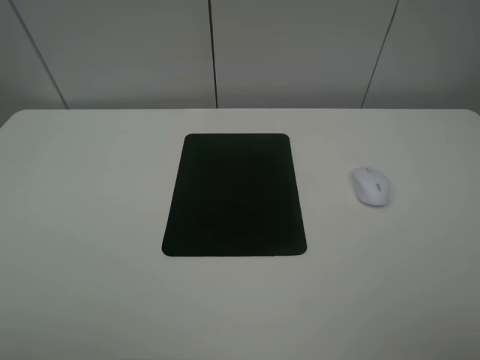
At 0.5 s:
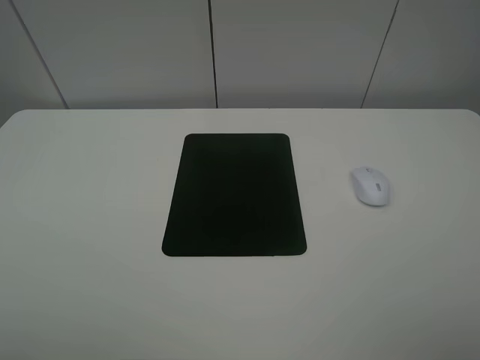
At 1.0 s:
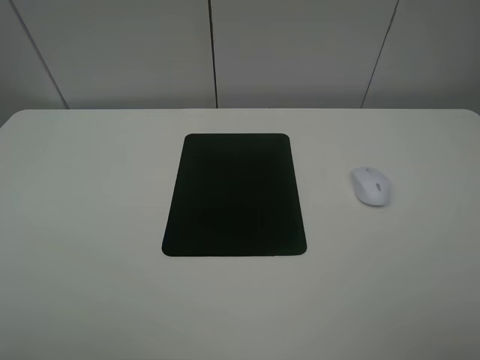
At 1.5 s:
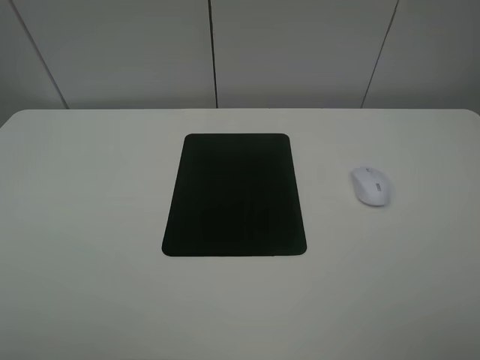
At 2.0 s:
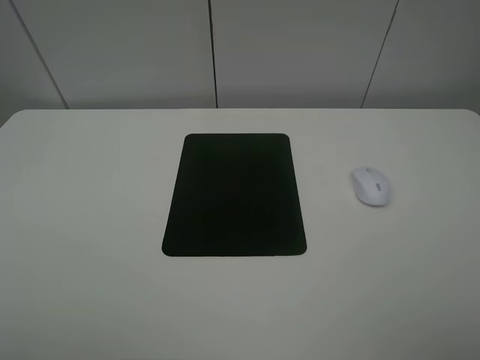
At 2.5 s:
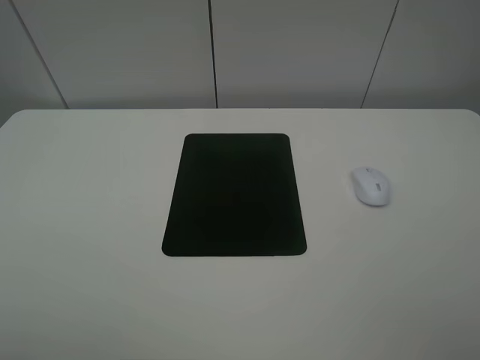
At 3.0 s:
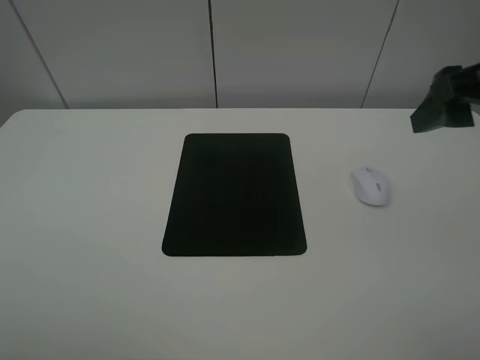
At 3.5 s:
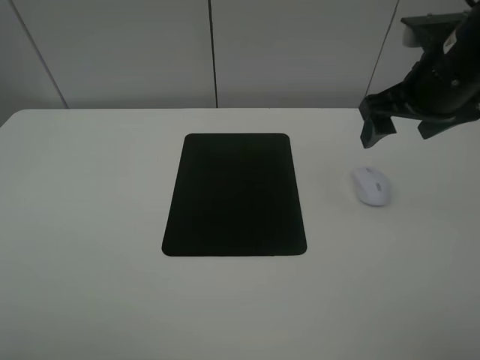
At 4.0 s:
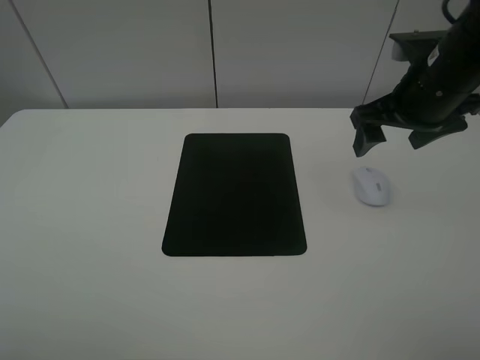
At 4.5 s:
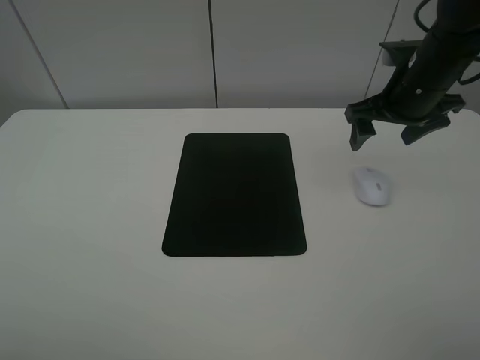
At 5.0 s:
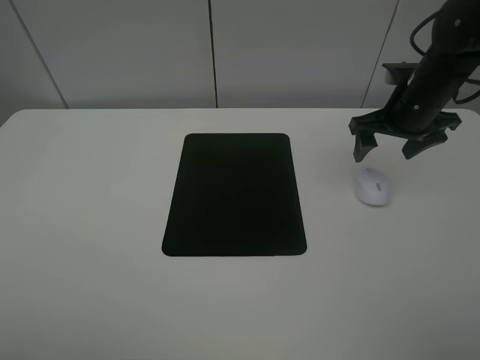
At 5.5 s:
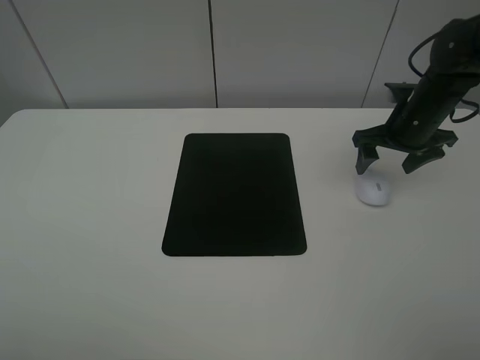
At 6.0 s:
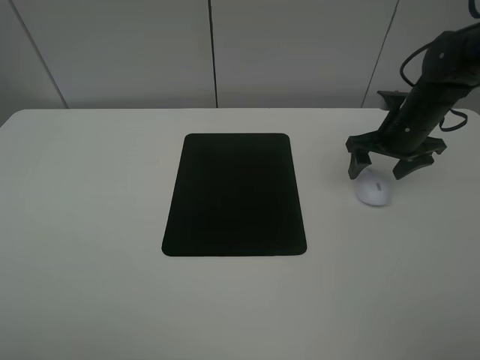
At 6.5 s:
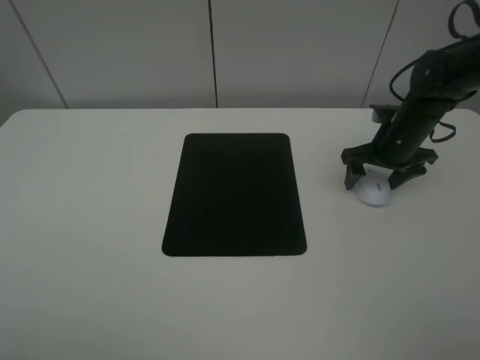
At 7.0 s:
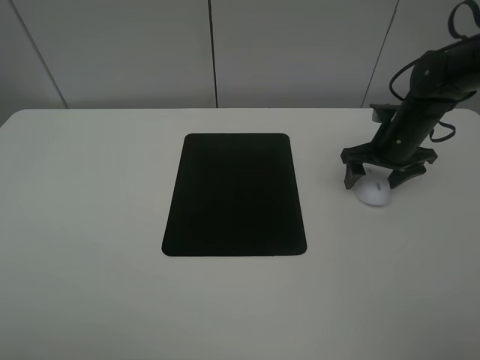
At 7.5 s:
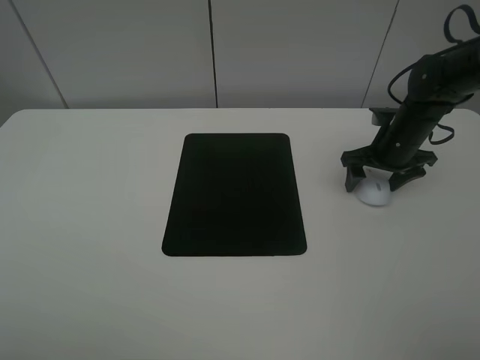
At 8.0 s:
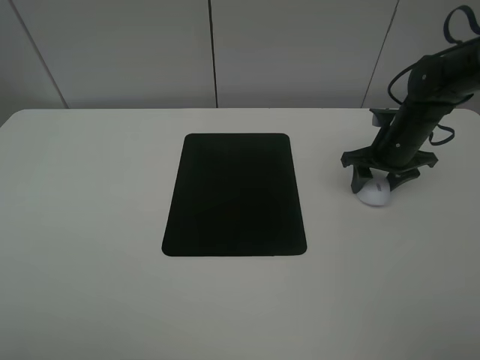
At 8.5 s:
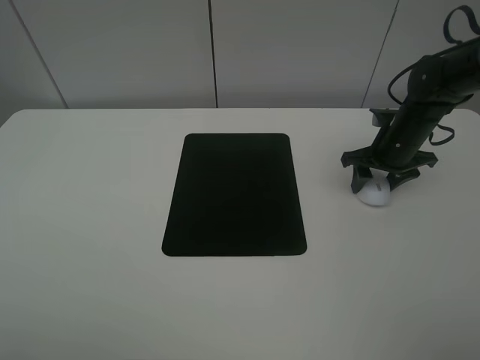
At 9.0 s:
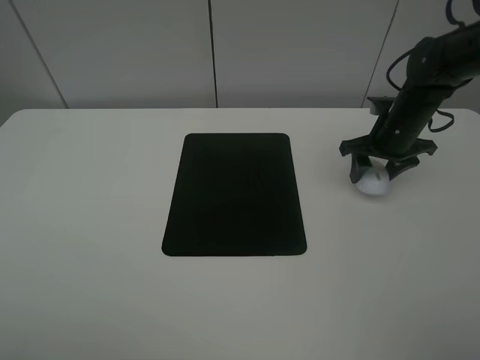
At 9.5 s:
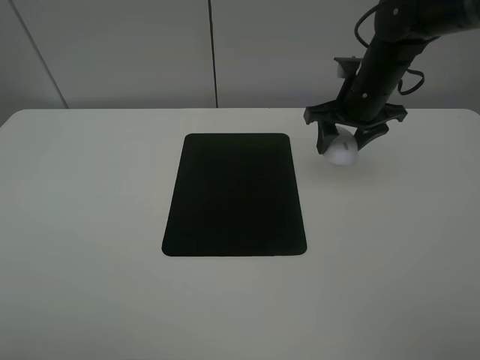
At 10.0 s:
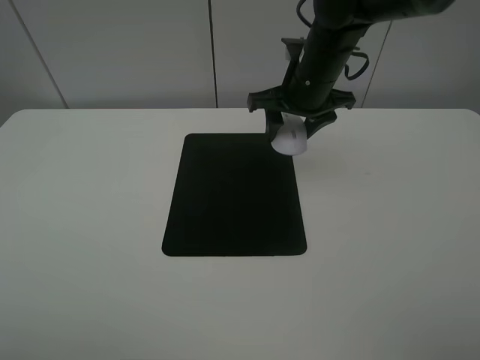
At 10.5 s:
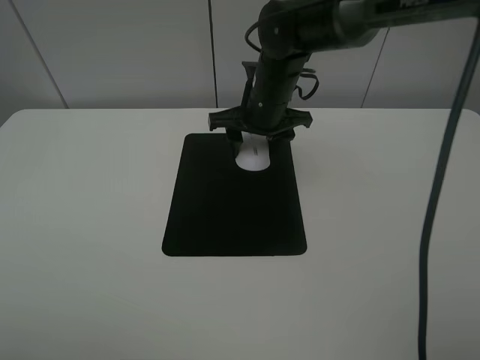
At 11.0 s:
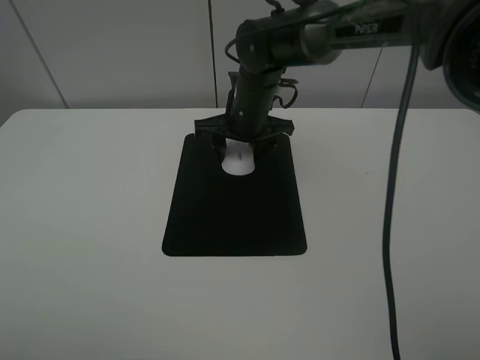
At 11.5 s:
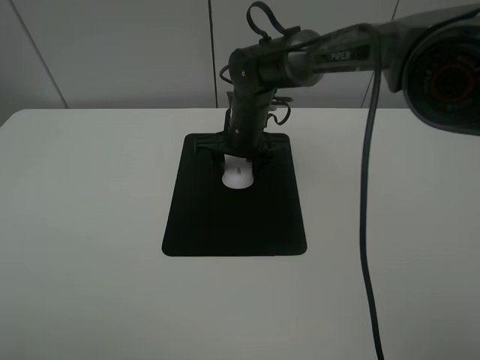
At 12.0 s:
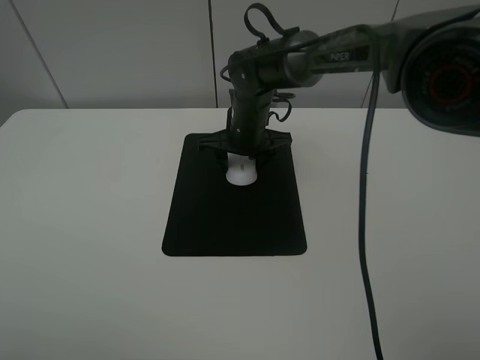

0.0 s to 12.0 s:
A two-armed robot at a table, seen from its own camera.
Step, 0.0 to 7.5 s: Grasp the mouse with the right gripper.
0.0 to 2.0 s: Both grippers stay put.
2.0 to 4.0 s: The right gripper moves forward, some 30 cm.
4.0 to 6.0 s: The right gripper travels downward and forward by approximately 15 cm.
6.0 to 8.0 s: The right gripper closes.
8.0 to 10.0 s: The right gripper moves to the left and upward, approximately 20 cm.
10.0 to 12.0 s: The right gripper travels downward and to the left by some 10 cm.

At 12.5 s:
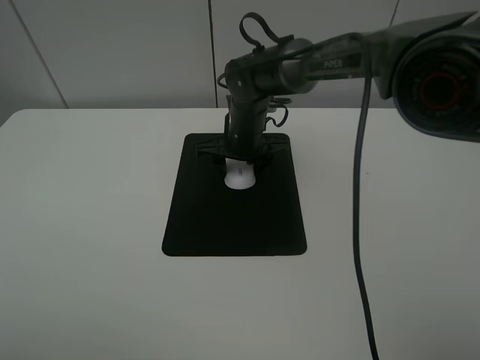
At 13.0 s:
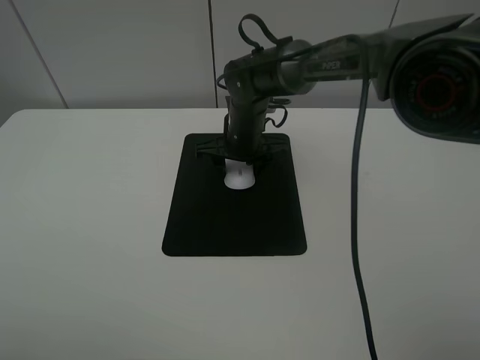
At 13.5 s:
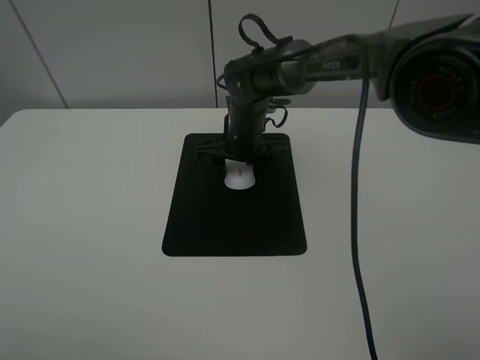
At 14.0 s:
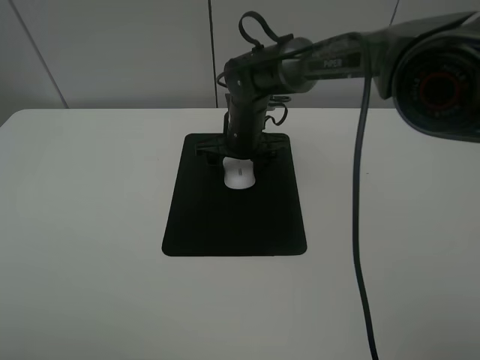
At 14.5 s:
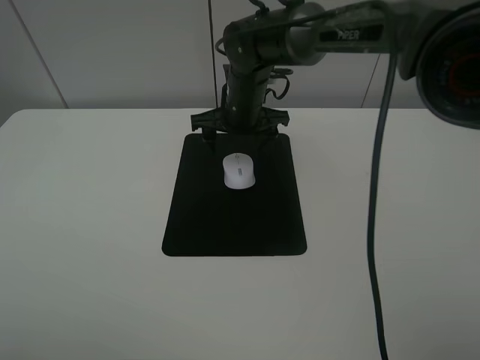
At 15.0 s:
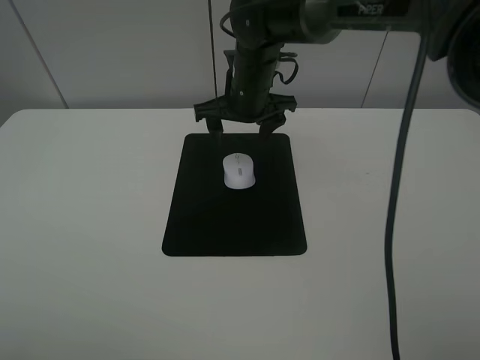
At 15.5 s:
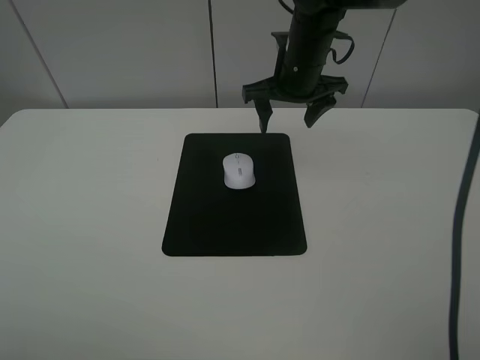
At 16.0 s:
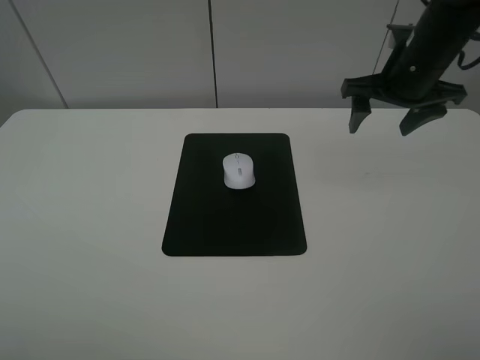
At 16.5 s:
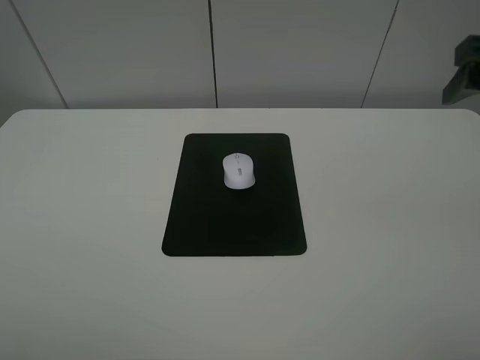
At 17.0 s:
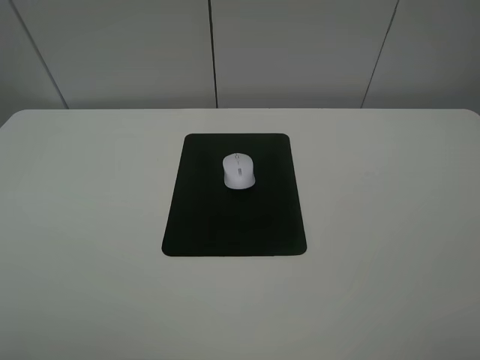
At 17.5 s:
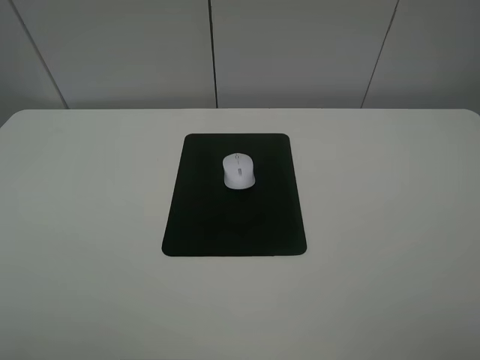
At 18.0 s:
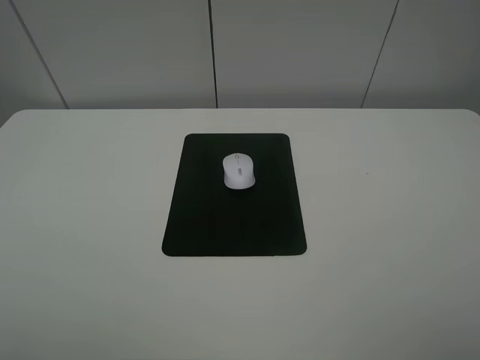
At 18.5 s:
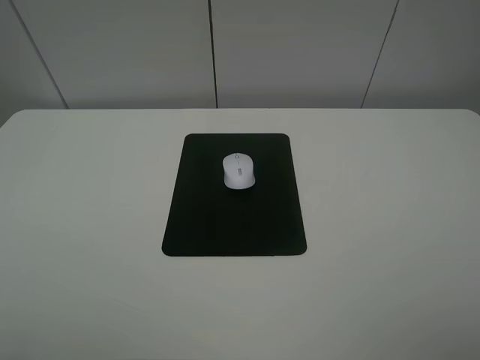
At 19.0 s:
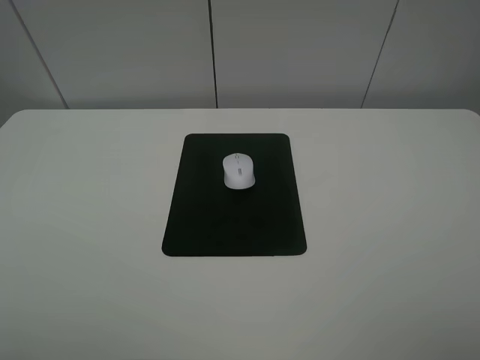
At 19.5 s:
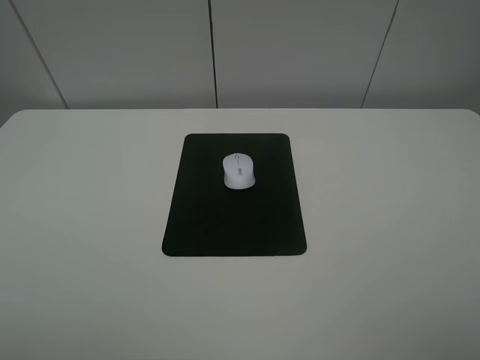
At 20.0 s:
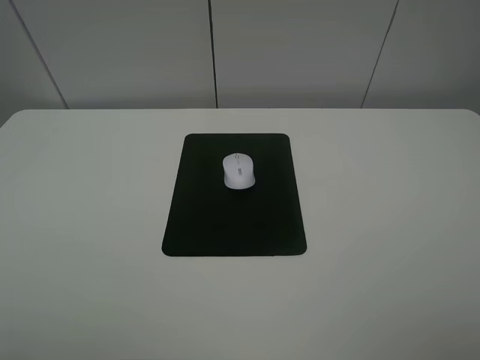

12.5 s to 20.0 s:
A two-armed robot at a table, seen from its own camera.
12.5 to 14.5 s: The right gripper shifts by about 5 cm, and opens its fingers.
14.5 to 16.5 s: The right gripper shifts about 35 cm to the right, backward and upward.
16.5 to 18.0 s: The right gripper goes approximately 20 cm backward.

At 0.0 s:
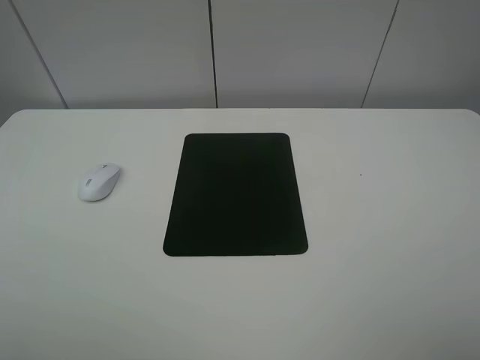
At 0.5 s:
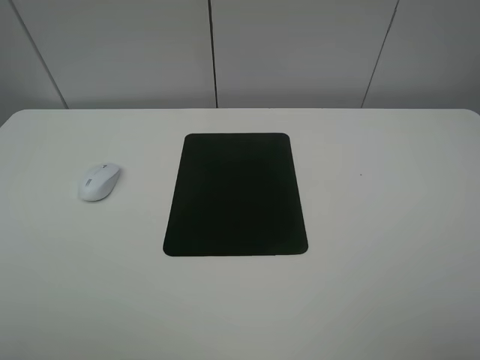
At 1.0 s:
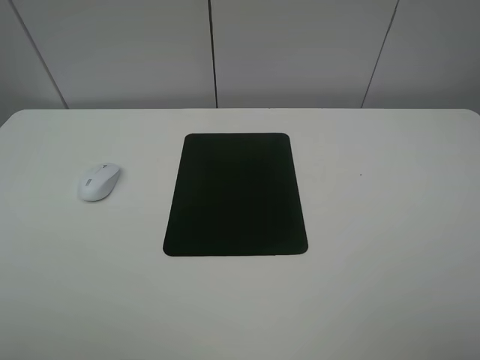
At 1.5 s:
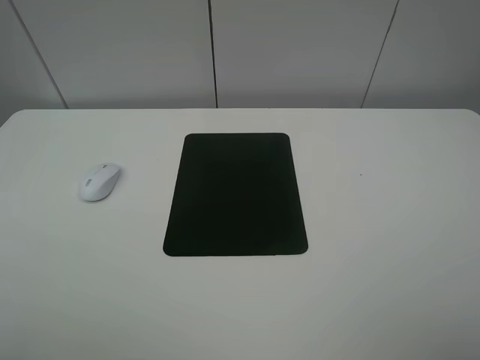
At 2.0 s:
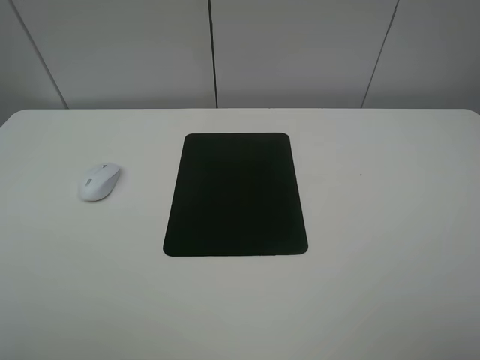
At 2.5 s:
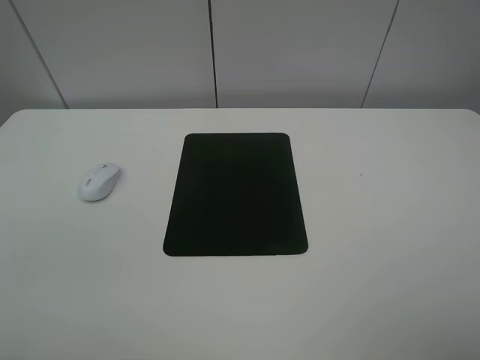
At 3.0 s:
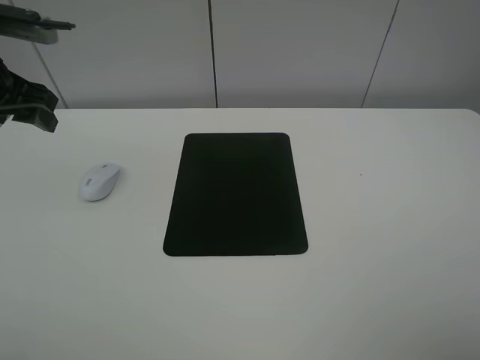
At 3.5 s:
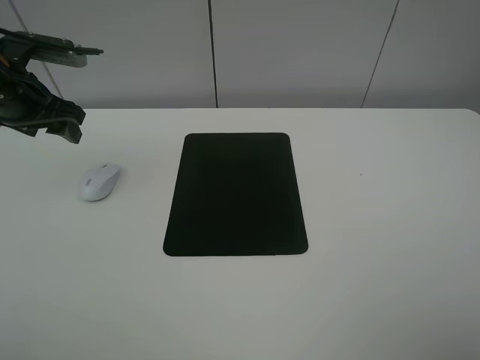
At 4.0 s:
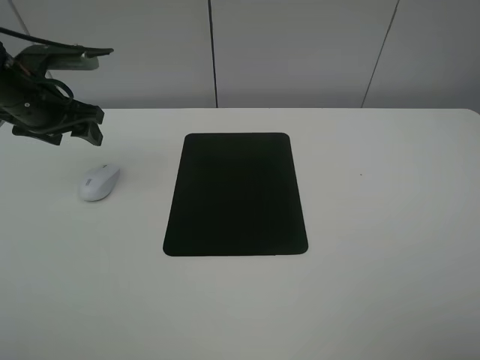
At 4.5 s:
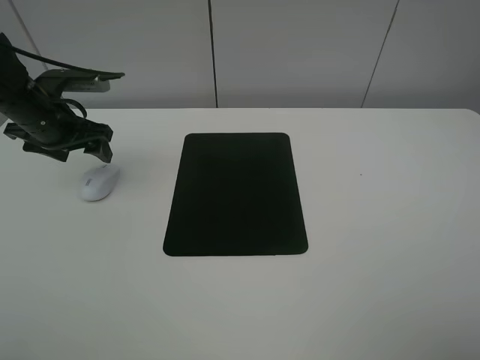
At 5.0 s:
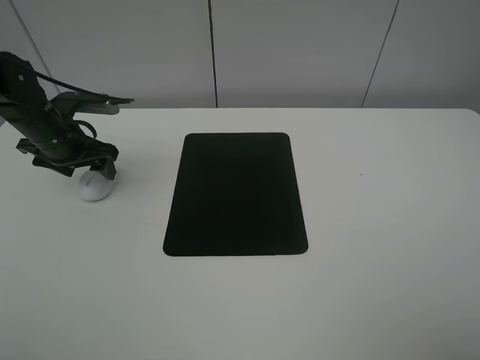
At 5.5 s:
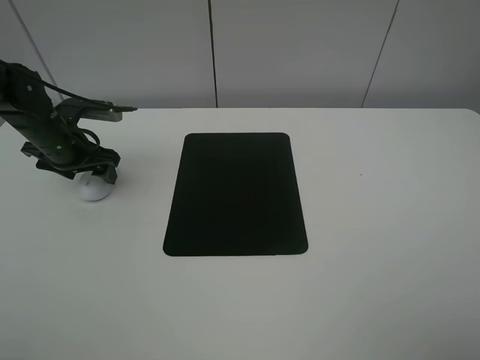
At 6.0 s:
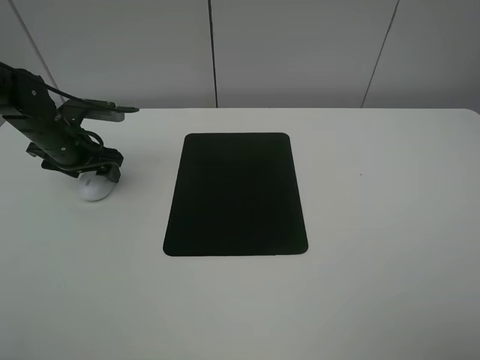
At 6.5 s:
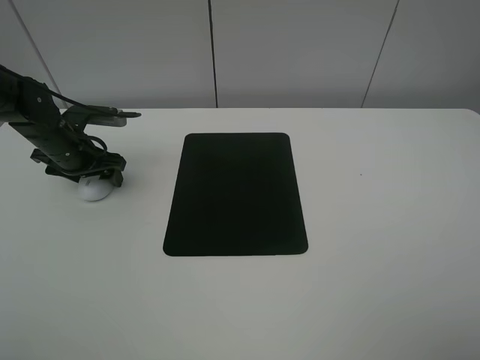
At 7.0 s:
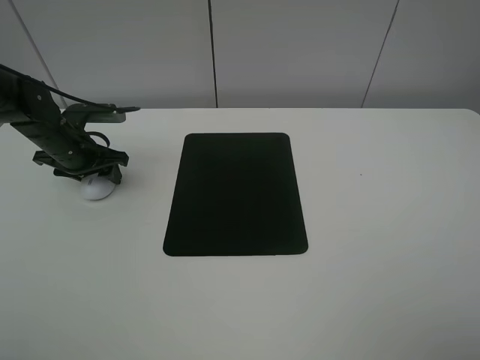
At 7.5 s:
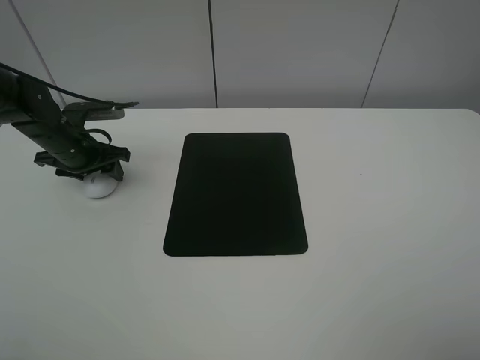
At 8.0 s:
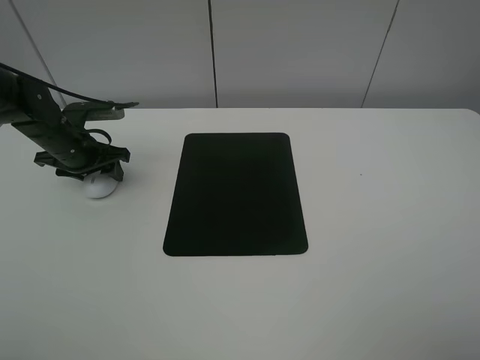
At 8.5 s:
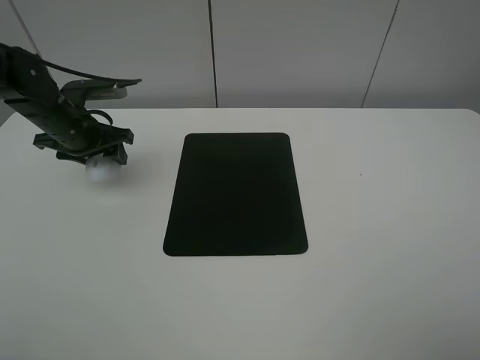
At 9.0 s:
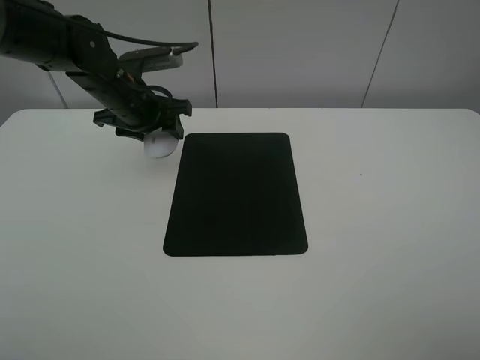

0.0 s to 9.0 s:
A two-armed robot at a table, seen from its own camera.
Step, 0.0 to 7.0 s: Grasp the mouse with the left gripper.
0.0 to 2.0 s: Both grippers stay put.
2.0 to 4.5 s: The left gripper shifts about 35 cm forward, and opens up.
4.5 to 7.0 s: The left gripper travels downward by some 5 cm, and closes its fingers.
7.0 to 9.0 s: The left gripper moves to the right and upward, roughly 15 cm.
